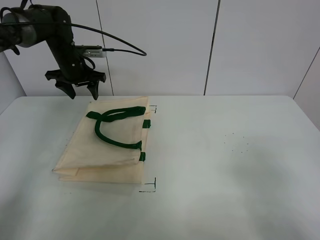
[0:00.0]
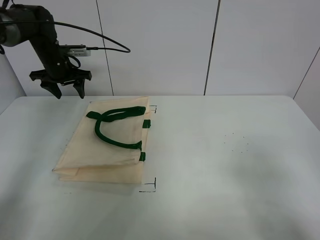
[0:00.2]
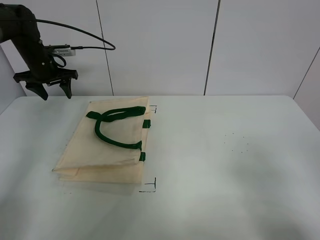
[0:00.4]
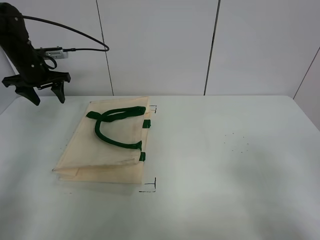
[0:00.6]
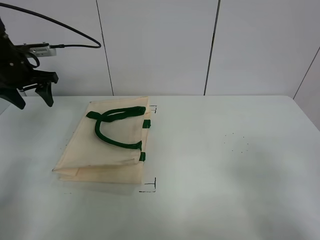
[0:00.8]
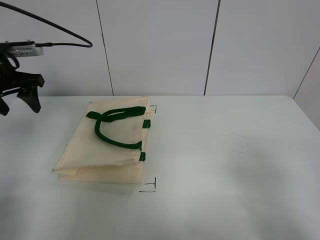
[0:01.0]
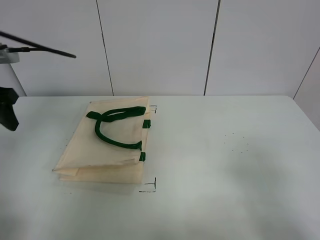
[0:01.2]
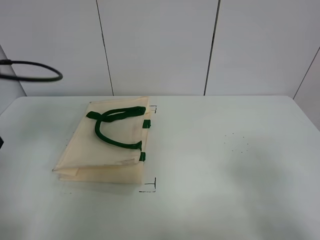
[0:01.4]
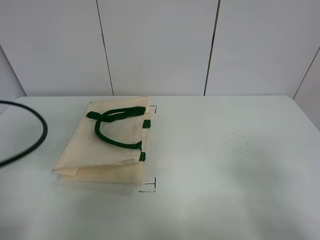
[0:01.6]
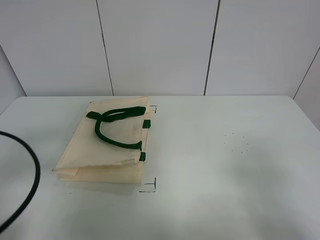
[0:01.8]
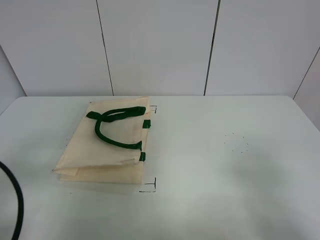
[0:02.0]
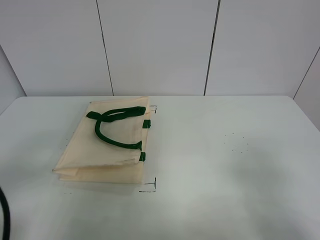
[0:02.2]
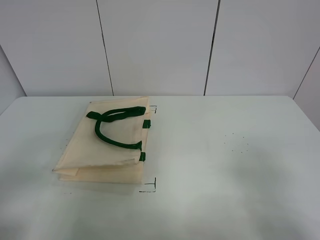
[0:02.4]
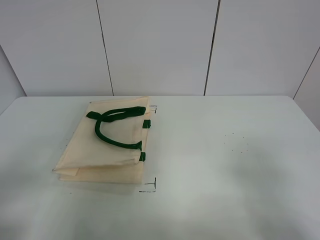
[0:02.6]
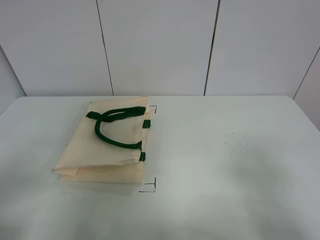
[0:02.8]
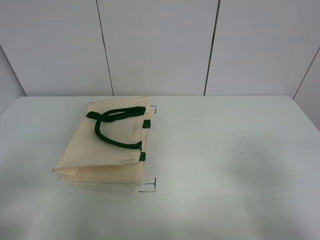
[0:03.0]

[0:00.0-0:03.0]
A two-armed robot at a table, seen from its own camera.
Task of the whole recording: open the white linen bag and put the peach in the bag.
0:00.0 to 0:01.6: The left gripper heads backward, covering approximately 35 cm.
0:01.6 to 0:03.0: The left gripper heads backward, covering some 15 cm.
